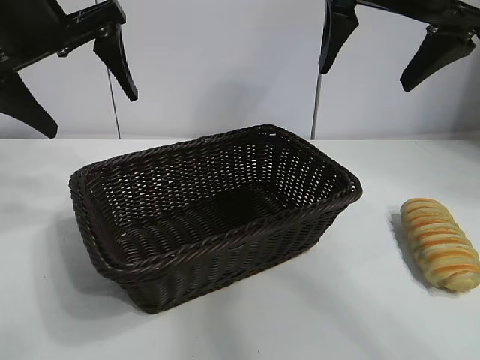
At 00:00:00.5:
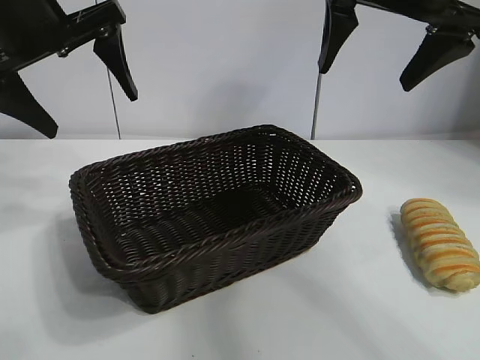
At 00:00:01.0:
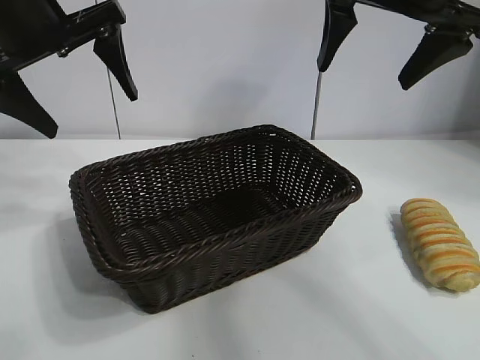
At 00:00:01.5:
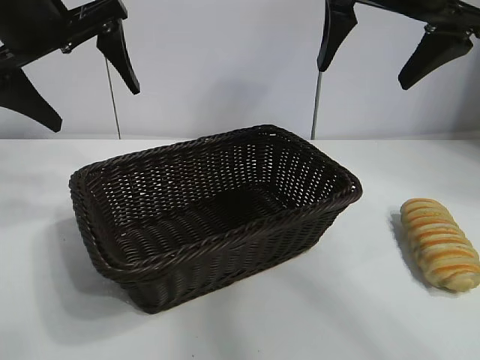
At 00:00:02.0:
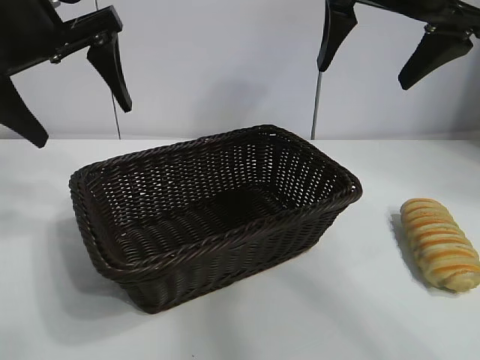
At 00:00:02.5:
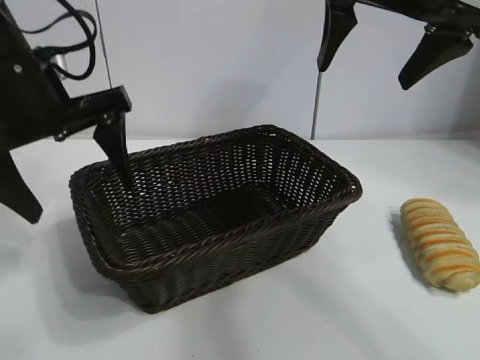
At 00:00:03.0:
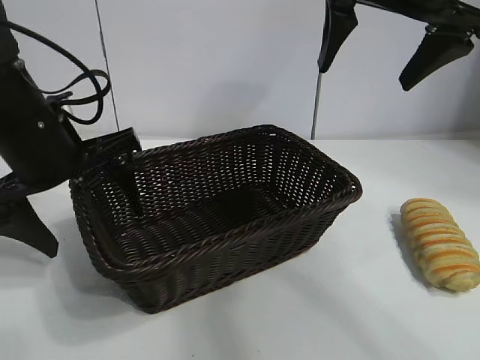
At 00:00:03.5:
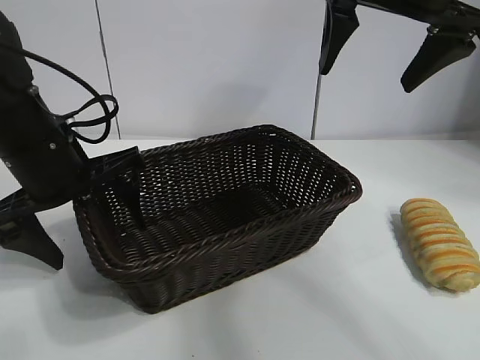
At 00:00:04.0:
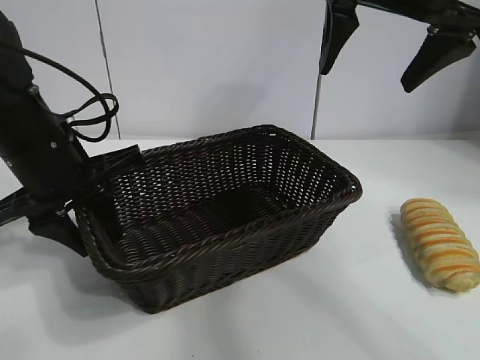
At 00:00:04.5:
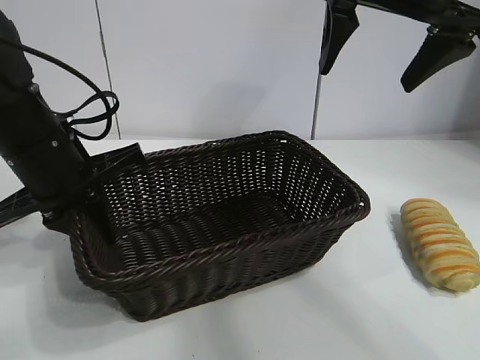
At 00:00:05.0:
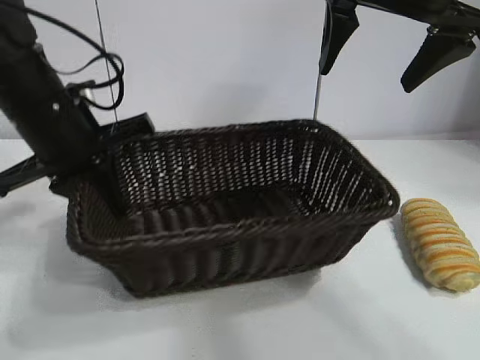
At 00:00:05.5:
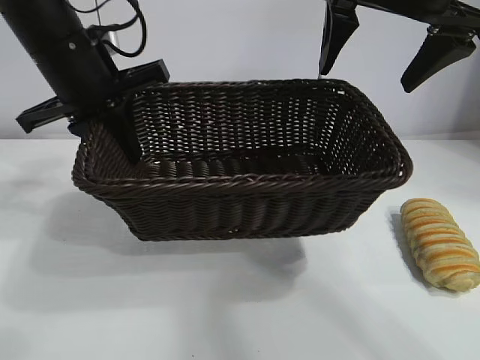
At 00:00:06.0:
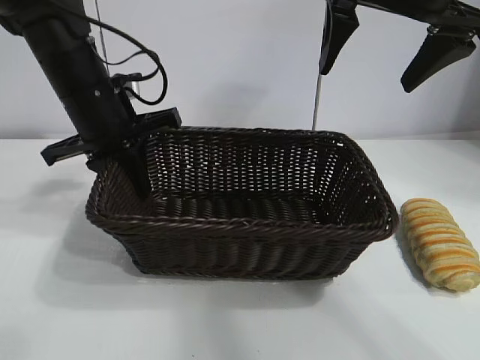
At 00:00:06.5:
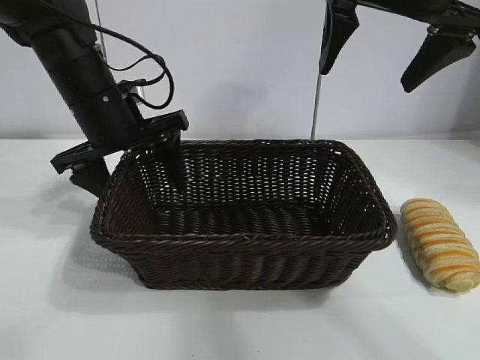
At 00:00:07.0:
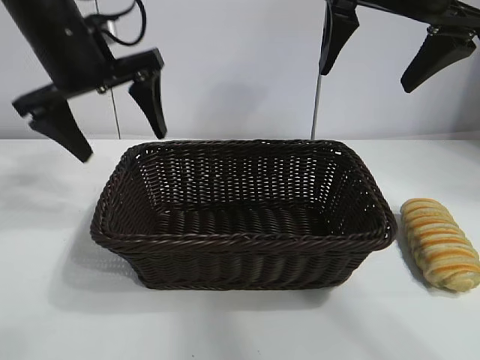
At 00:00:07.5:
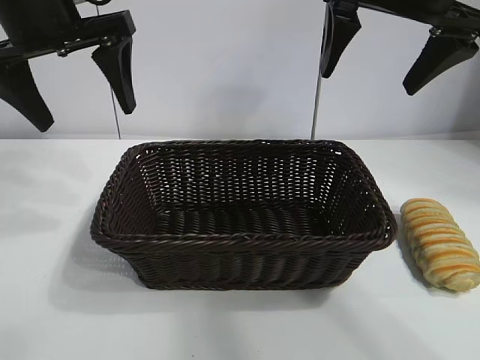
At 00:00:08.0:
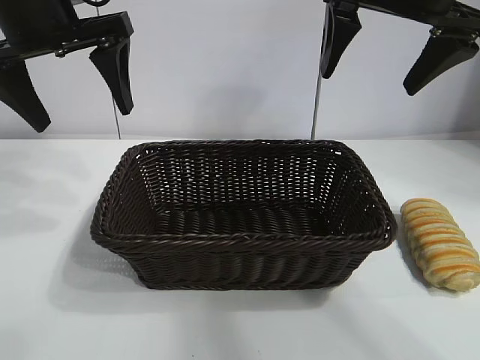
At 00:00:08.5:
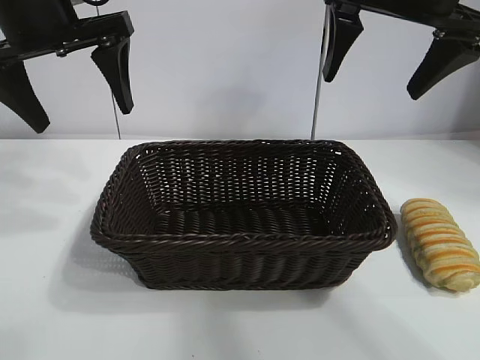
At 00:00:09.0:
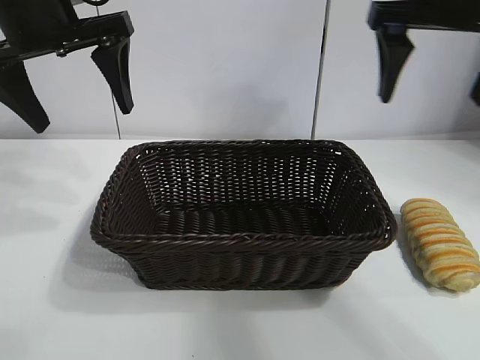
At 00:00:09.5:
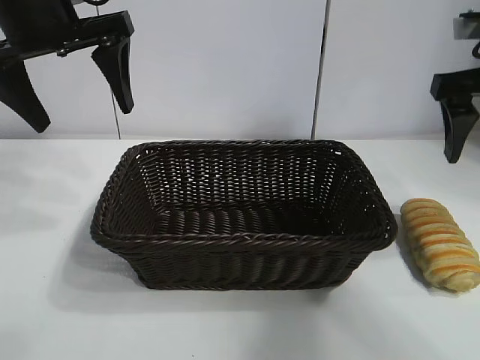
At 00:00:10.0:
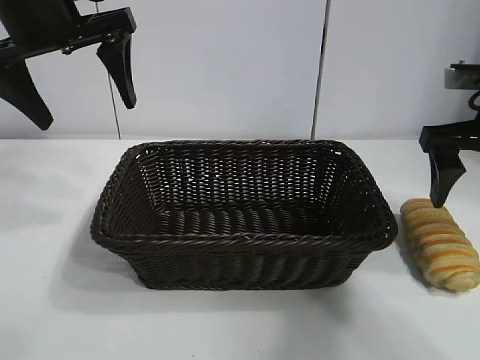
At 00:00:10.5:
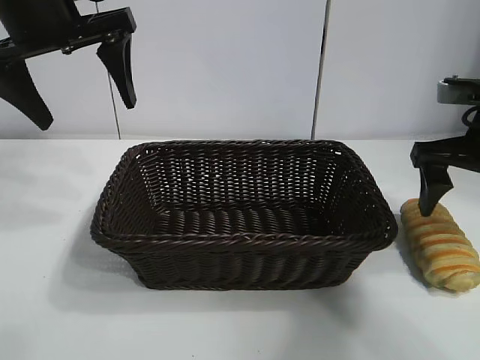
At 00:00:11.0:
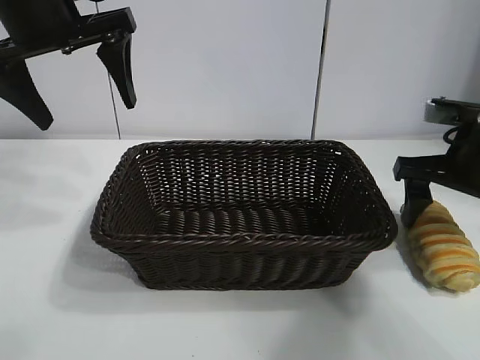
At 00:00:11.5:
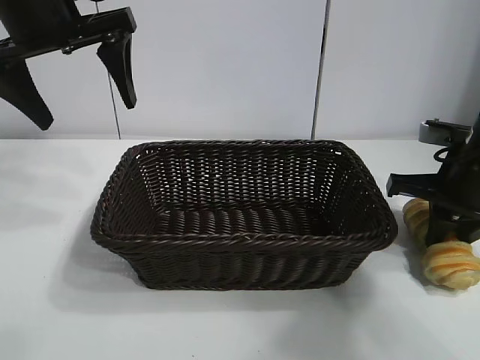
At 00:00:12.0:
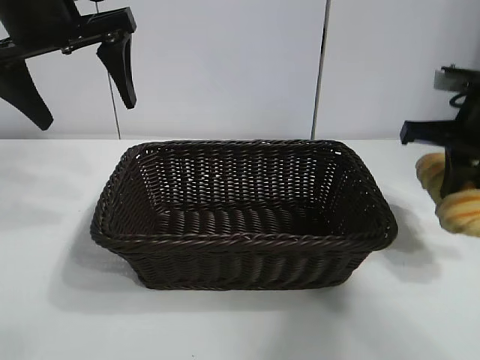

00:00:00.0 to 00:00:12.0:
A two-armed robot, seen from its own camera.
Task of the whole recording: pick up the long bread and put it into the basket.
Step, 00:00:02.0 to 00:00:04.0: Grasp the basket with the left gripper.
Step, 00:00:04.5 to 00:00:06.5: Place the basket in the center of the table with the left gripper.
Step, 00:00:07.0 to 00:00:11.0: Grasp the long bread with right gripper.

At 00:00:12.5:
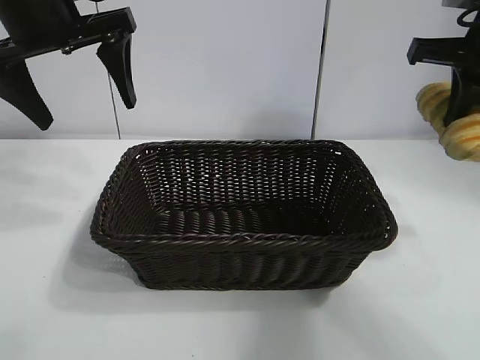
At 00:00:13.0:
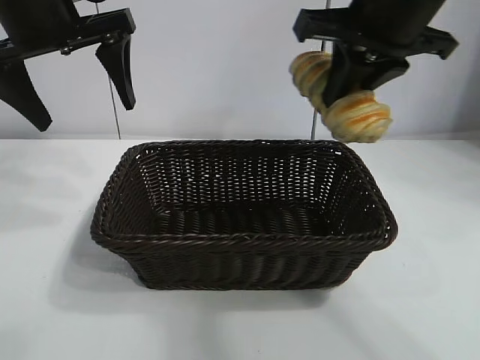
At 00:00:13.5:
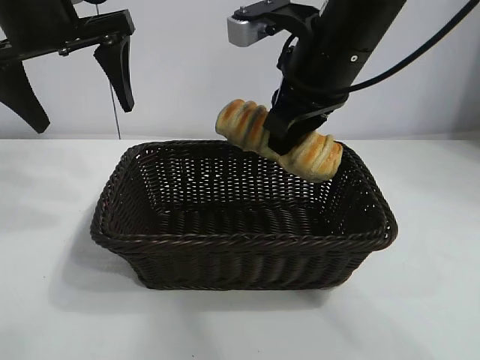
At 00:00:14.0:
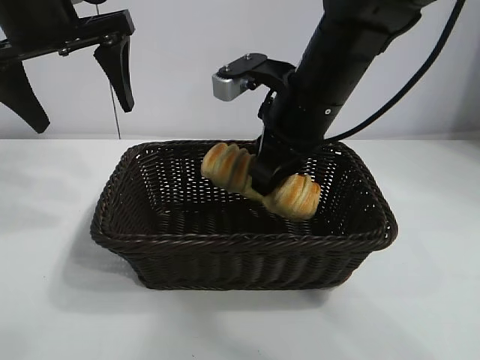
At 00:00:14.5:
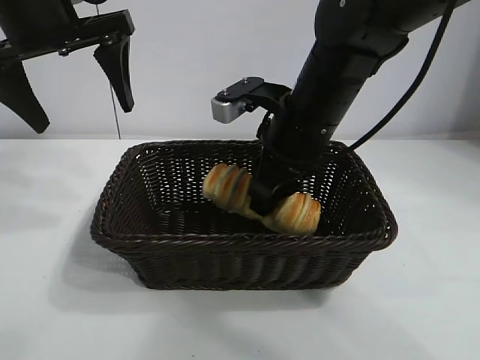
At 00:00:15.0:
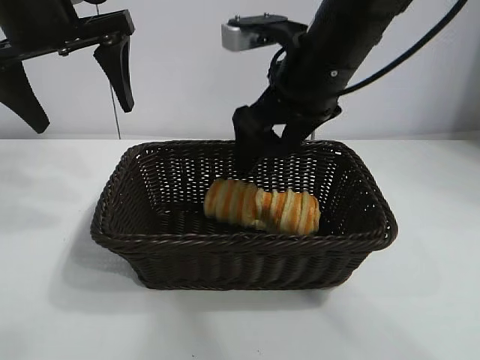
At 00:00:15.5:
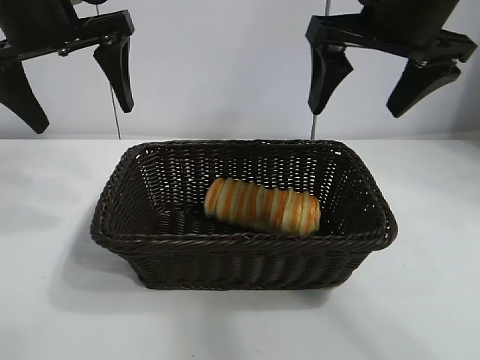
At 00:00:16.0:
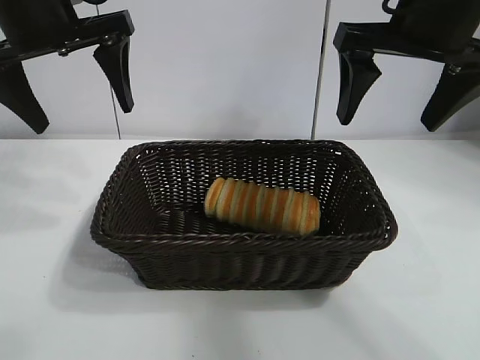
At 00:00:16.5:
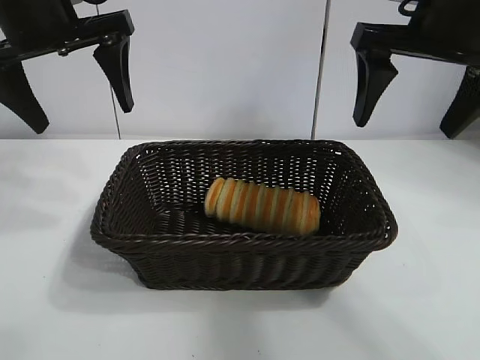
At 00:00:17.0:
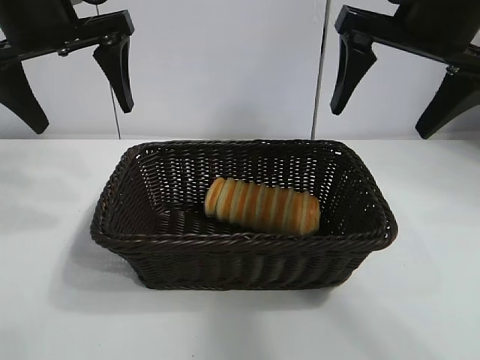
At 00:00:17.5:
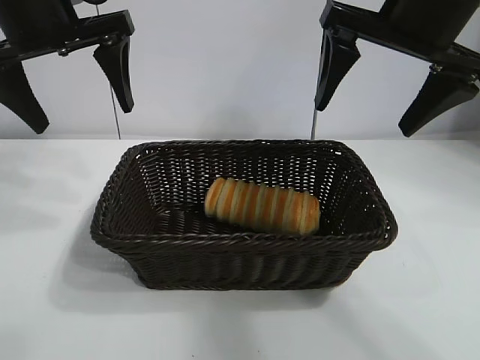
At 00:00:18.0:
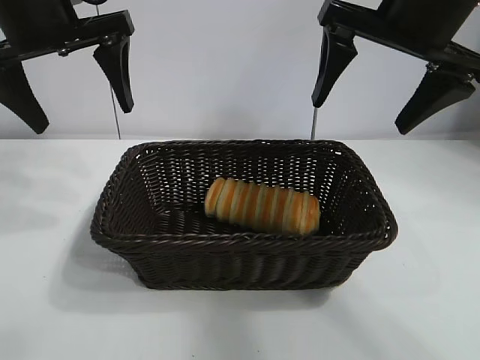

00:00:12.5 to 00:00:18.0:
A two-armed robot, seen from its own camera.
Task of the whole recording: pick up the long bread and put it into the basket.
Step, 00:00:12.5 to 00:00:14.5: Place the long bread in the basket with right gripper.
